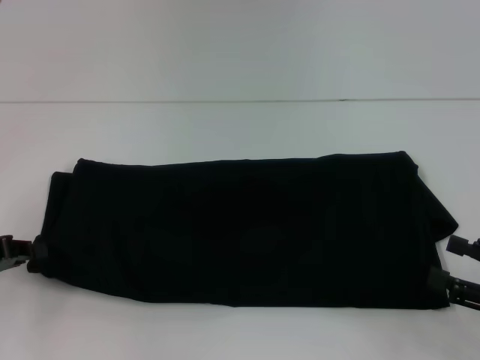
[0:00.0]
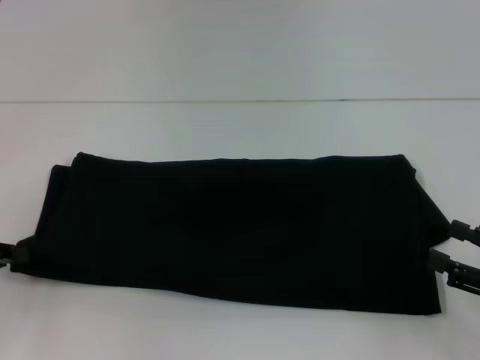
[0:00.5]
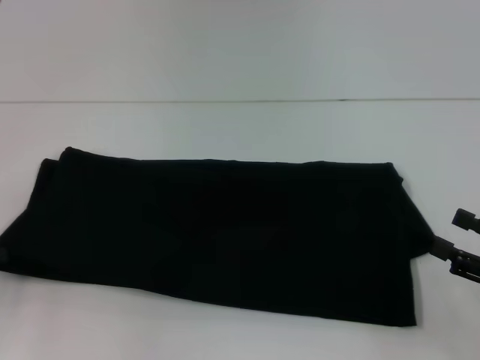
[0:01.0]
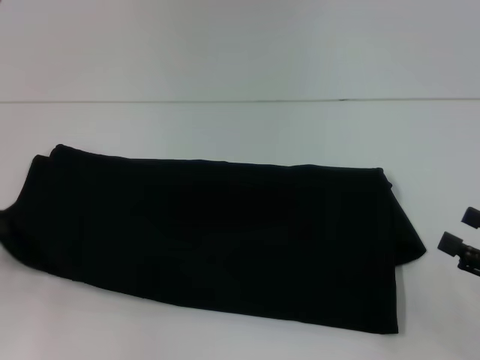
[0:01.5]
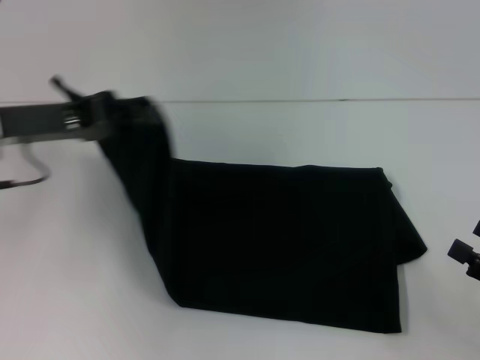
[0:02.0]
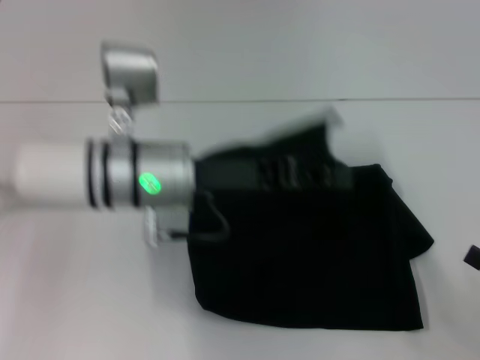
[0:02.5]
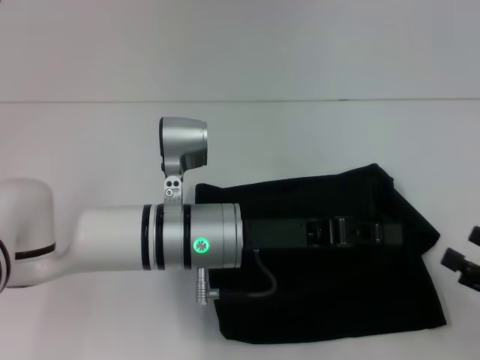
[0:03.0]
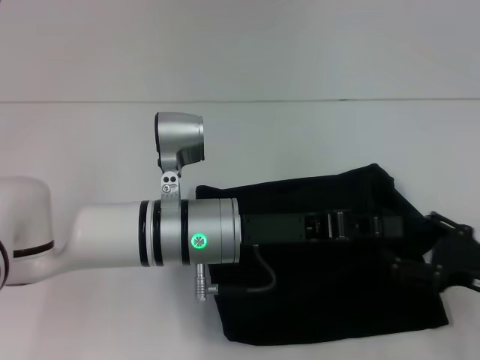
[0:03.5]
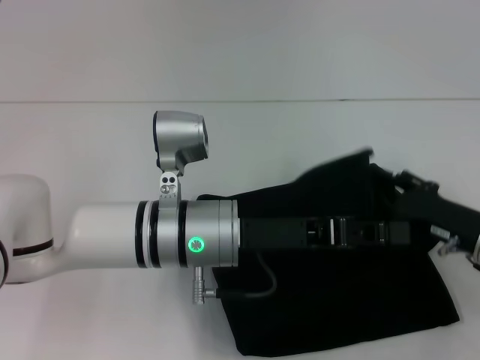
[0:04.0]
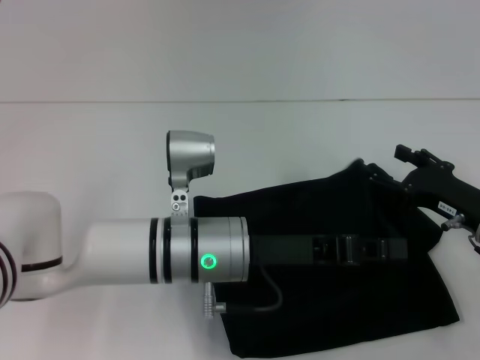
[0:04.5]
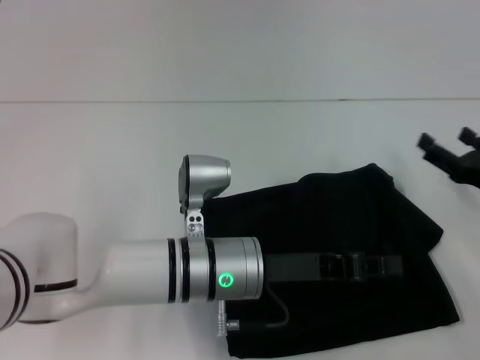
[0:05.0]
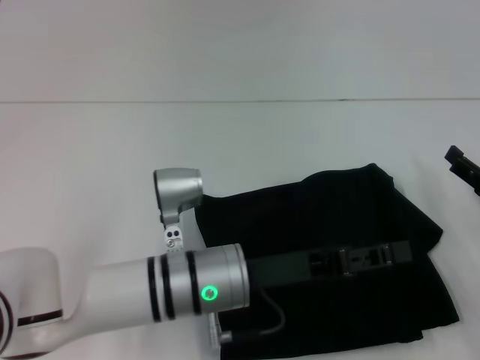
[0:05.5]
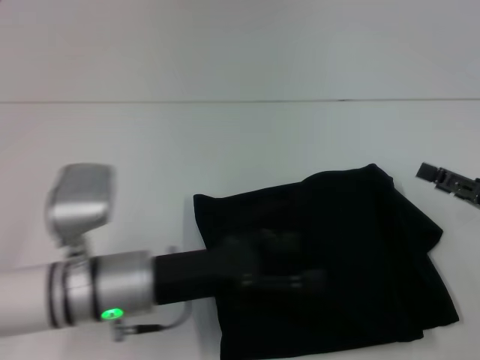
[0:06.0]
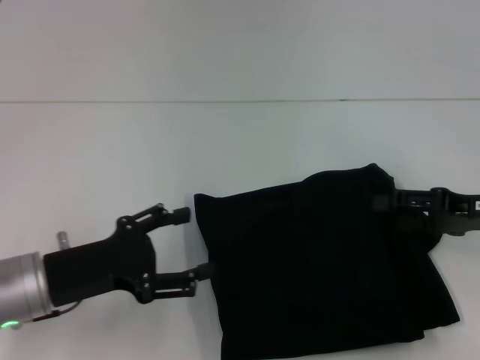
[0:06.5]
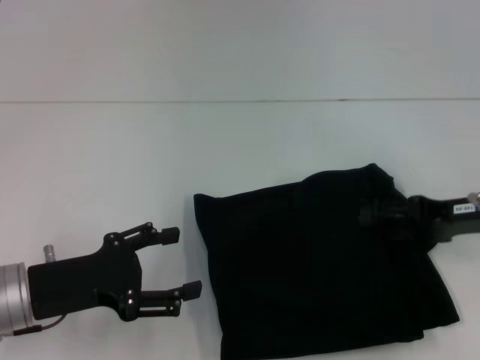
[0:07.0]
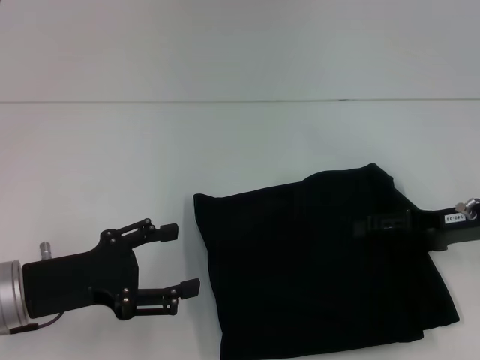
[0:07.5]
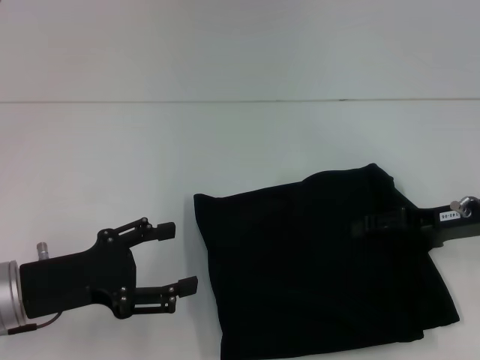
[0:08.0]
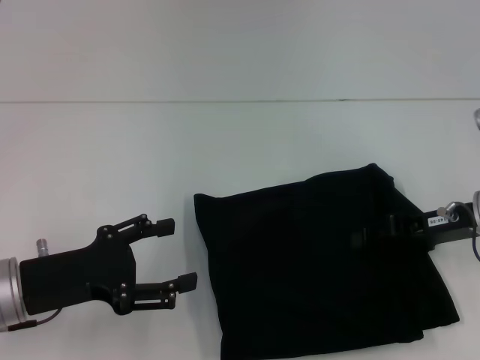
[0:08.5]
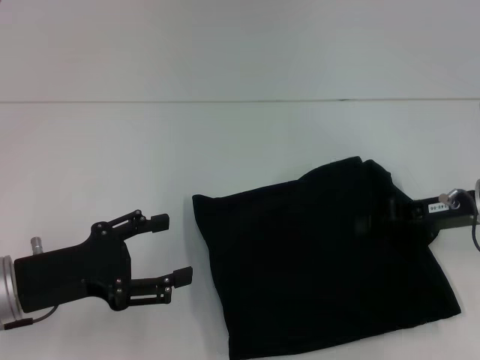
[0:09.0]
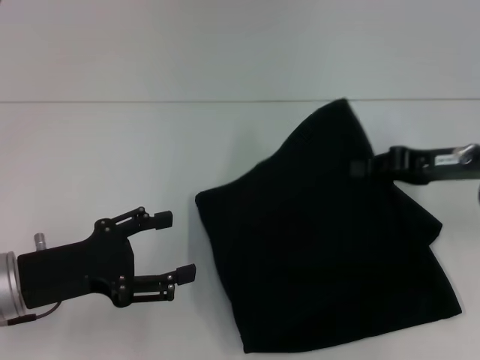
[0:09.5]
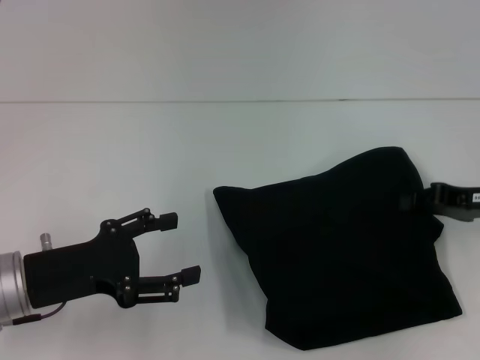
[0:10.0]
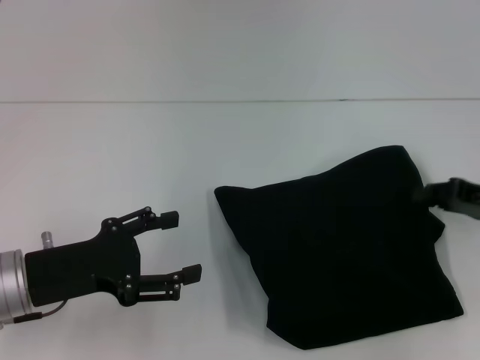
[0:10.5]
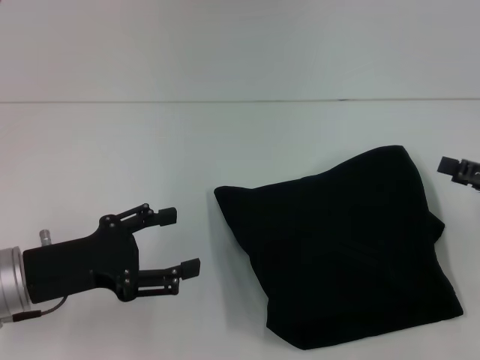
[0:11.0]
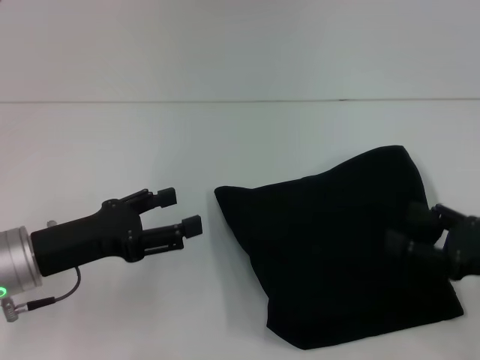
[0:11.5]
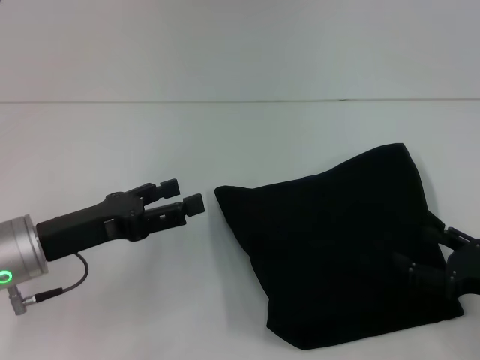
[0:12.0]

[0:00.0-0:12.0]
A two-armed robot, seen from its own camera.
Step, 0:00.0 to 0:05.5: Fold the clothes with your left hand.
0:00.0 to 0:02.0: The left gripper heads upward, to the right and forward, covering roughly 15 cm.
0:02.0 to 0:04.0: The right gripper shifts roughly 15 cm forward and to the left. The left gripper is displaced to the right by approximately 20 cm.
0:04.0 to 0:06.0: The right gripper is displaced to the right by roughly 5 cm. Meanwhile the left gripper heads to the left, covering some 5 cm, and opens.
0:06.0 to 0:08.0: The left gripper moves to the left, about 10 cm. The right gripper is displaced to the left and forward by roughly 10 cm.
0:08.0 to 0:10.0: The right gripper closes.
0:10.0 to 0:12.0: The right gripper goes roughly 10 cm backward and downward, and opens.

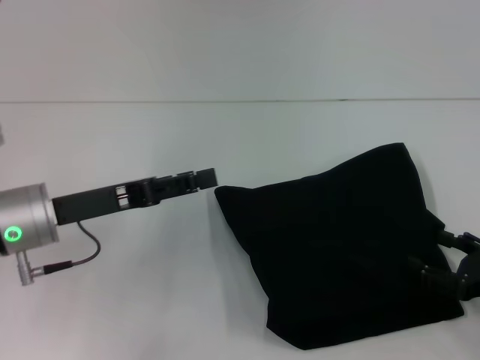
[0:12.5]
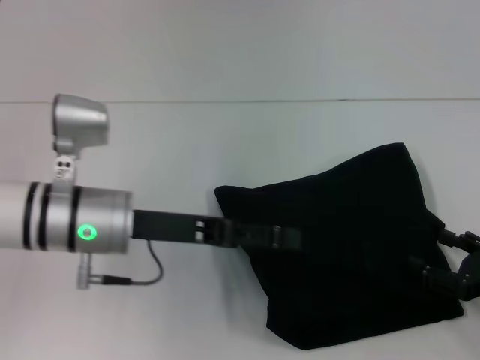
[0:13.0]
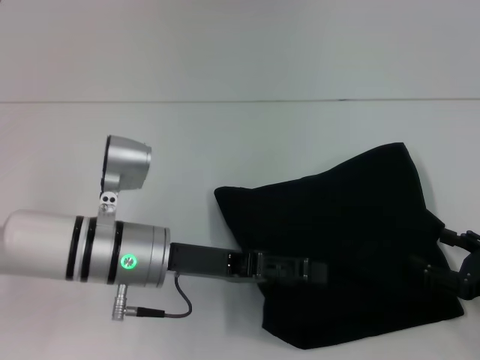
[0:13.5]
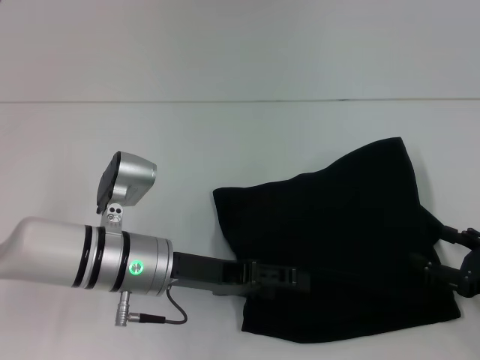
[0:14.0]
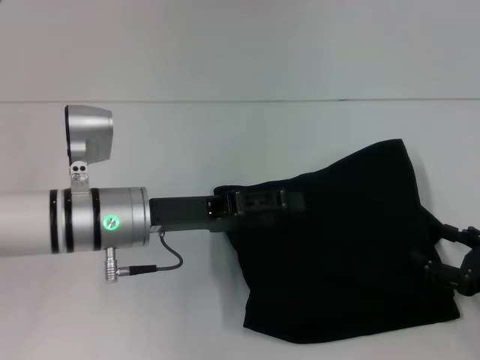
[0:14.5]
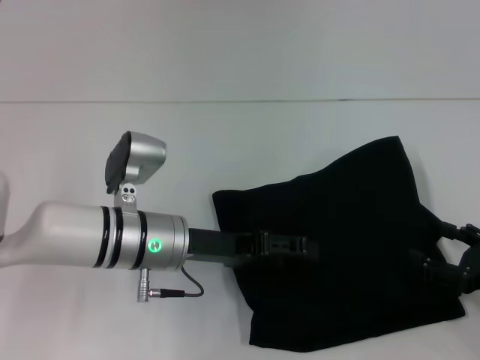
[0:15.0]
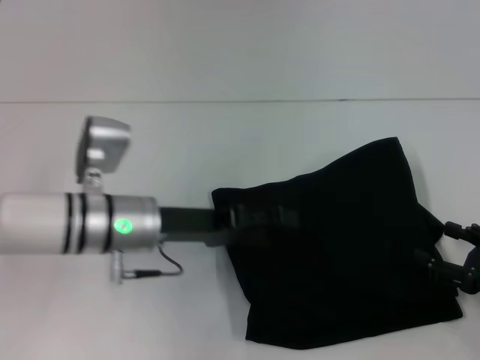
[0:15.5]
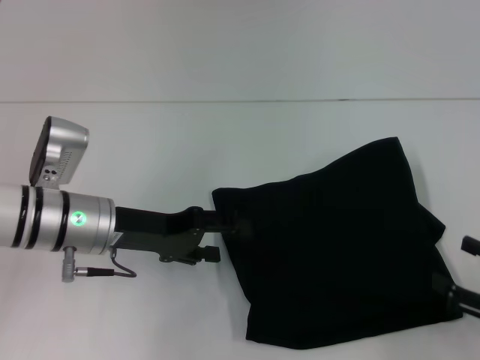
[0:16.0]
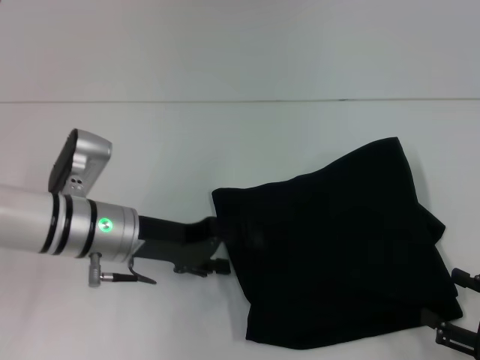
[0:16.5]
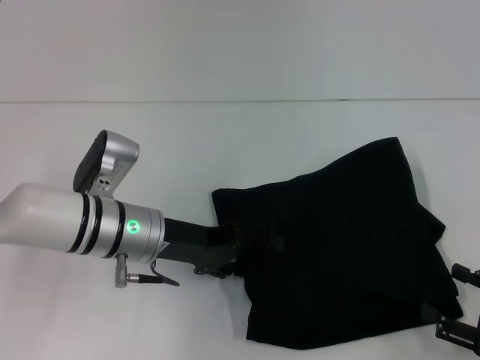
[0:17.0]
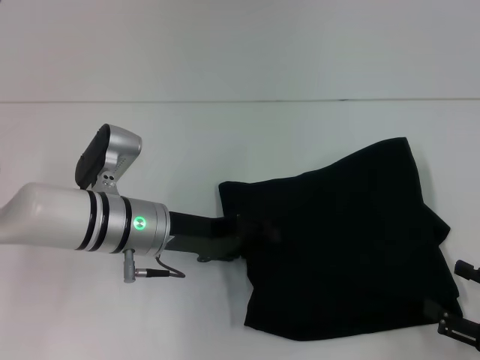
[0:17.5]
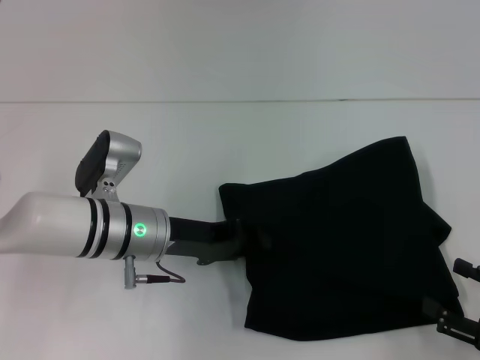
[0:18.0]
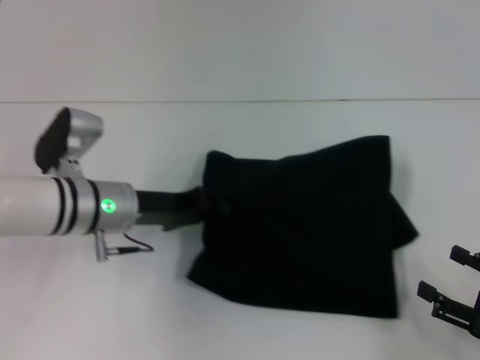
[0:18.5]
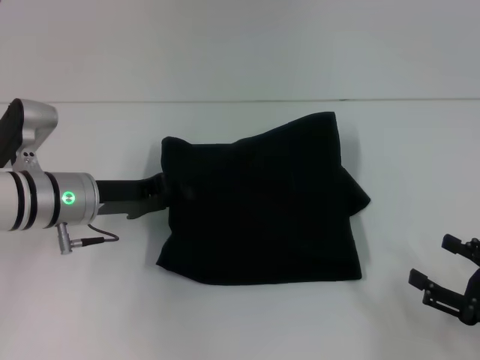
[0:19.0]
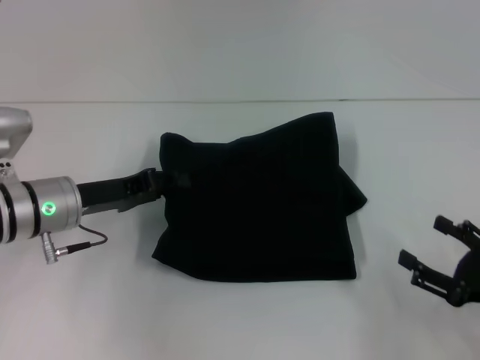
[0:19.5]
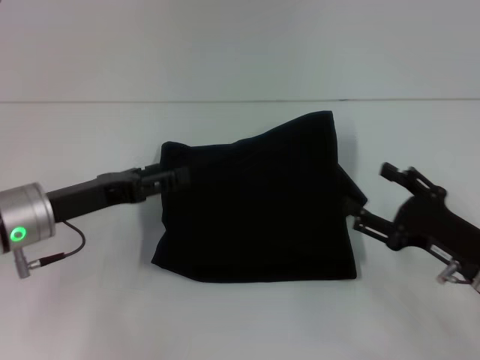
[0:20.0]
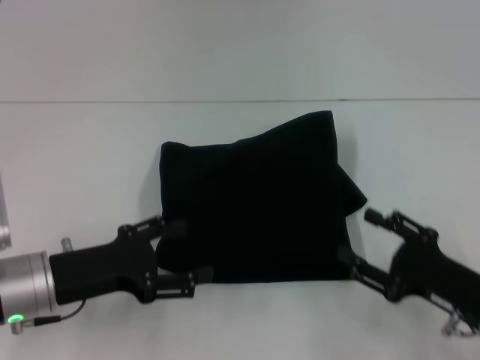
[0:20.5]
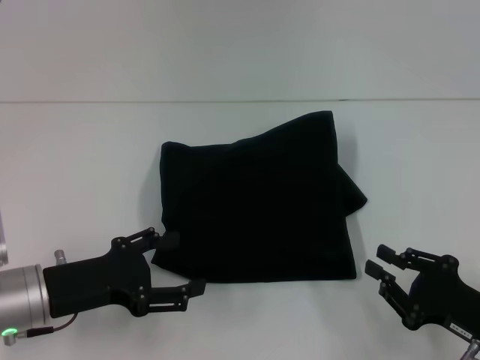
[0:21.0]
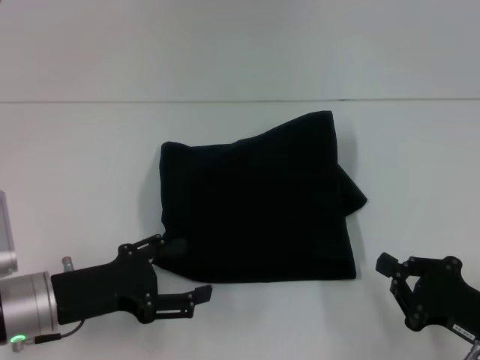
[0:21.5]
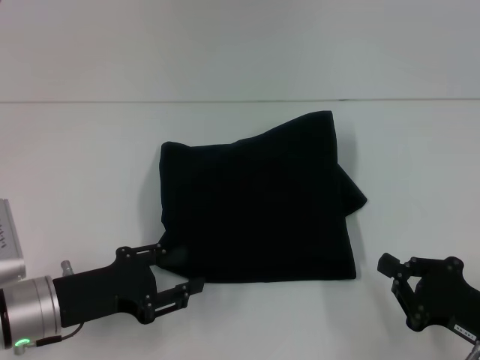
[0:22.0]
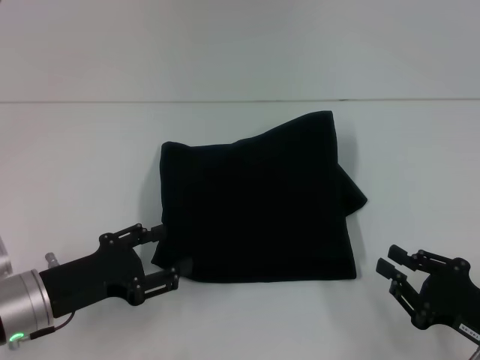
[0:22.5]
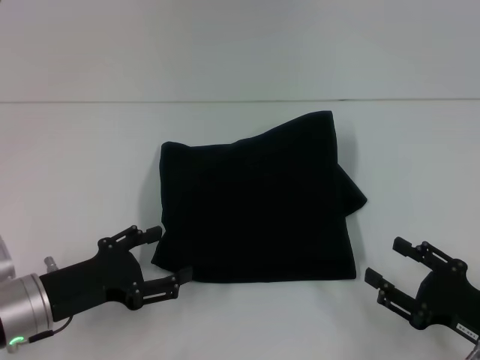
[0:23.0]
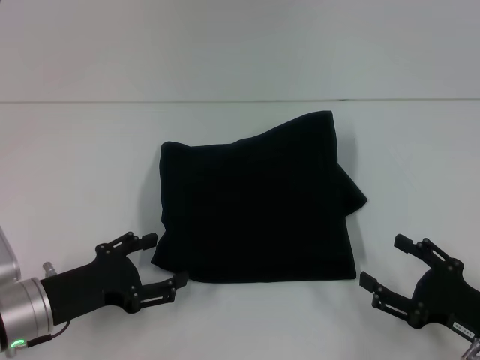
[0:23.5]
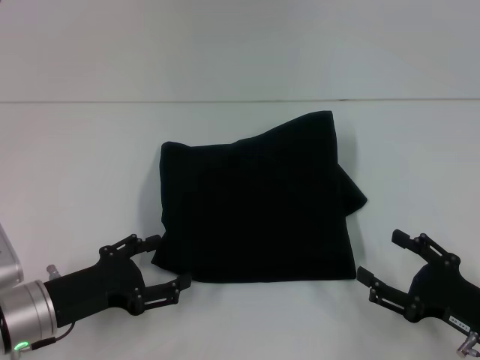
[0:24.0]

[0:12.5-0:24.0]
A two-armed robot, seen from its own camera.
0:12.5 to 0:14.5: The left gripper heads to the right, covering approximately 10 cm.
0:14.5 to 0:16.5: The right gripper moves backward, roughly 5 cm.
0:16.5 to 0:18.5: The left gripper closes.
0:18.5 to 0:20.0: The left gripper goes some 5 cm to the left, and opens its fingers, while the right gripper travels forward and to the left by roughly 10 cm.
0:20.0 to 0:22.0: The grippers both shift backward by approximately 5 cm. The right gripper closes.
0:22.0 to 0:24.0: The right gripper opens its fingers.

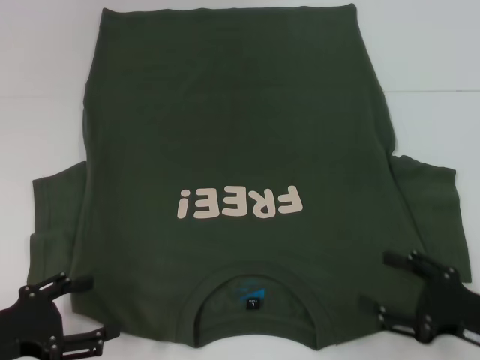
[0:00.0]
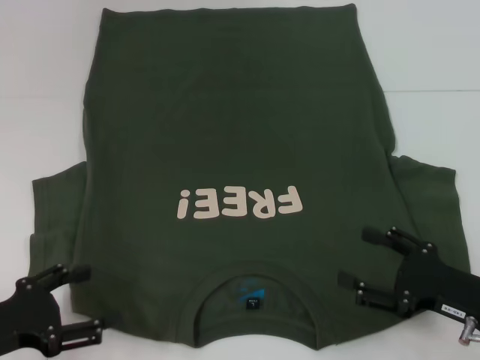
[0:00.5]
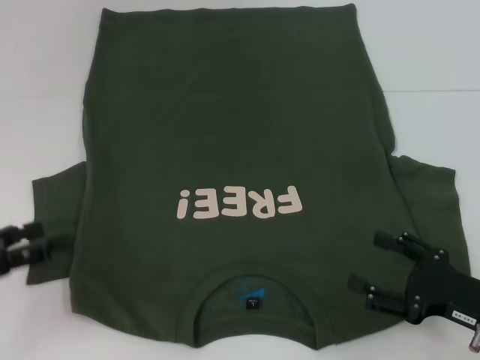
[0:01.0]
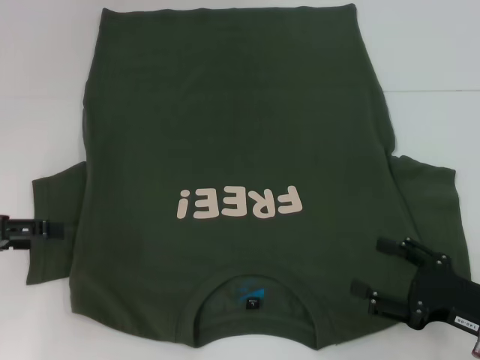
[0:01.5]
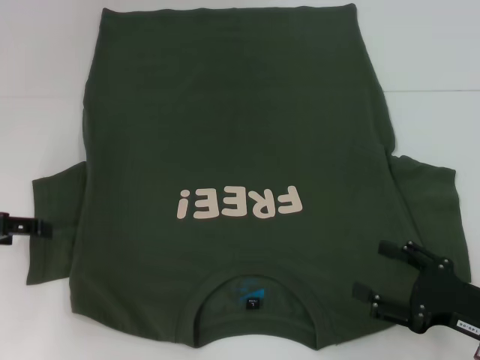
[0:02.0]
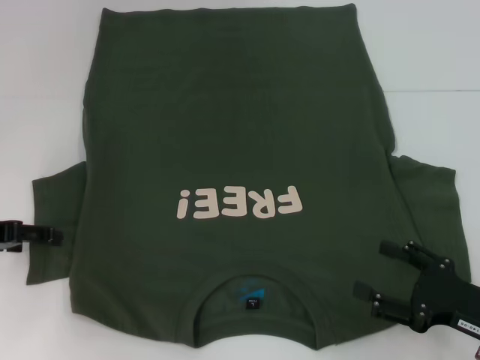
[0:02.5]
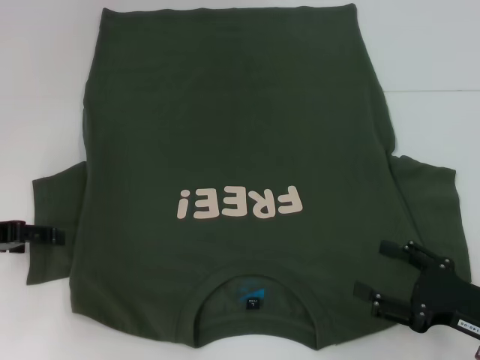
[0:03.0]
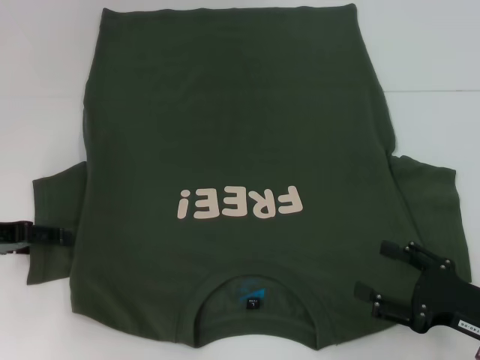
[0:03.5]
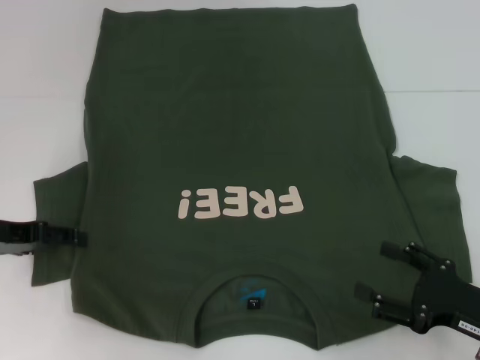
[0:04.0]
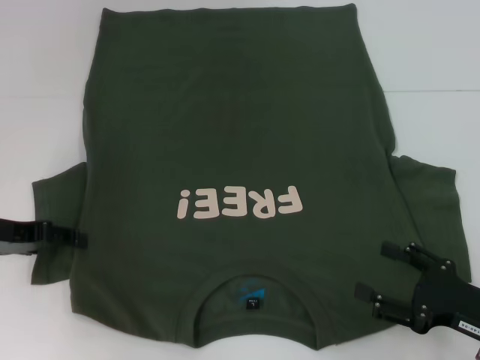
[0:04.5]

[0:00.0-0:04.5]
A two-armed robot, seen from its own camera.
0:00.0 to 0:02.0: The left gripper goes approximately 15 cm forward and upward.
0:02.0 to 0:04.5: The grippers stay close to where they were, moving slightly.
